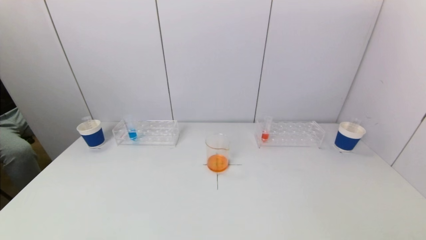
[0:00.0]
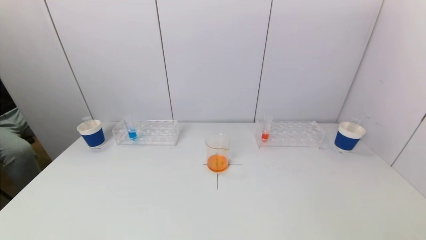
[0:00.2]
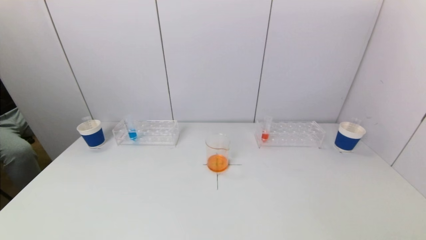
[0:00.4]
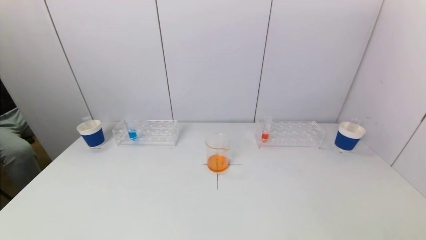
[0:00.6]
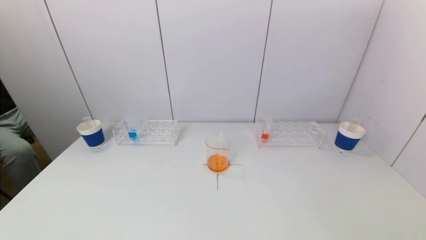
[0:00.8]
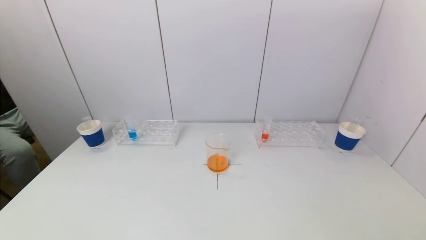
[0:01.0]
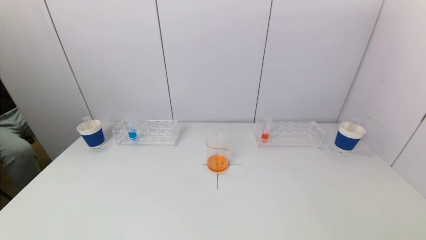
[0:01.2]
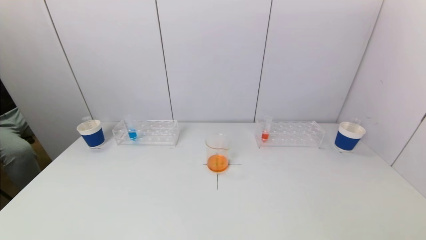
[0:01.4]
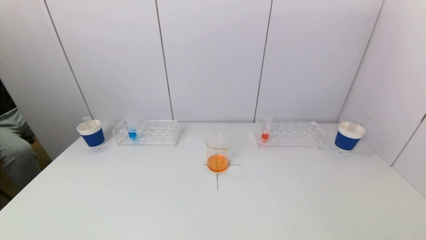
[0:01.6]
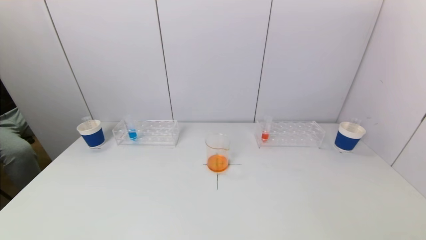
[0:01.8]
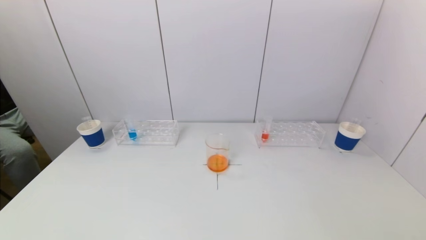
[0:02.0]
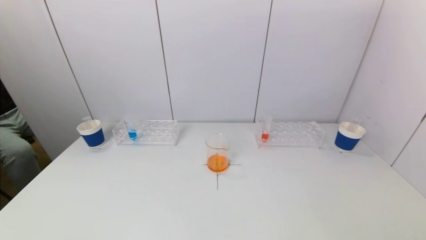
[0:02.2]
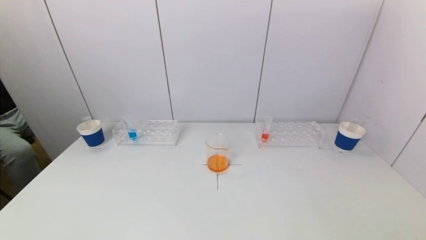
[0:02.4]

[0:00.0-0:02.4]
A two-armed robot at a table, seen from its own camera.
Task of the whole recording: pick up a test tube with pigment on left test tube rack and a test tube with pigment on right test tube rack by grippers and pour them into the beaker.
0:01.2 to 0:02.4: The two grippers keep their place.
